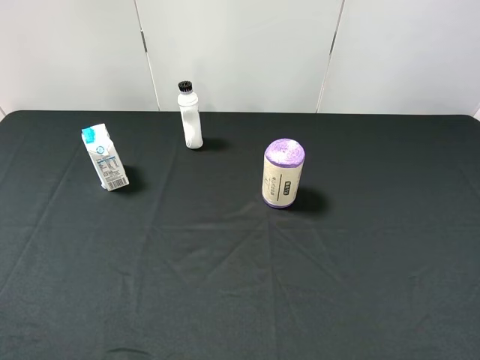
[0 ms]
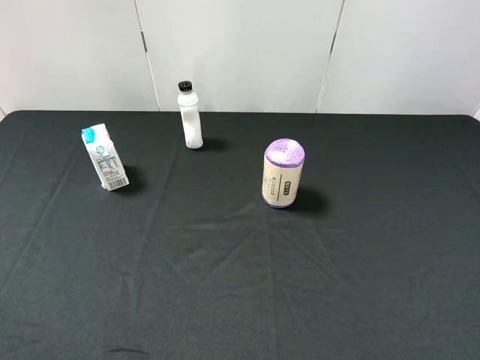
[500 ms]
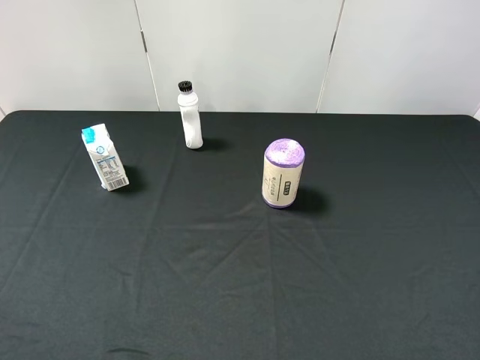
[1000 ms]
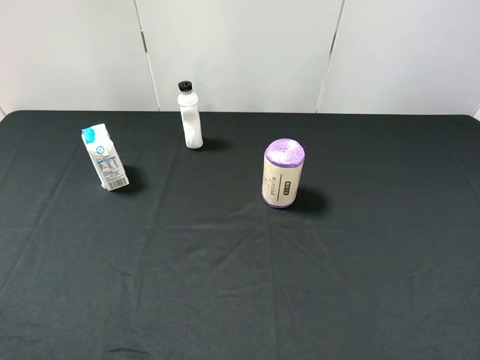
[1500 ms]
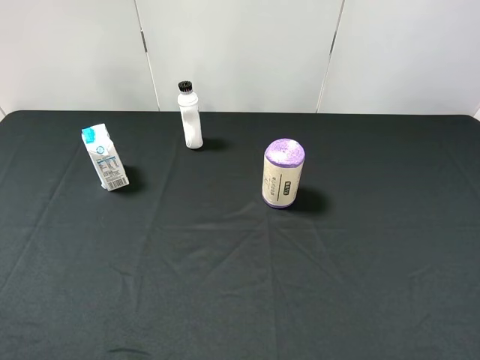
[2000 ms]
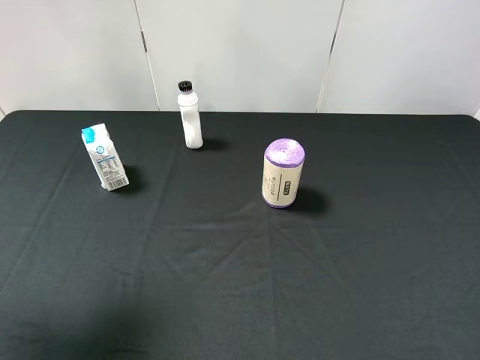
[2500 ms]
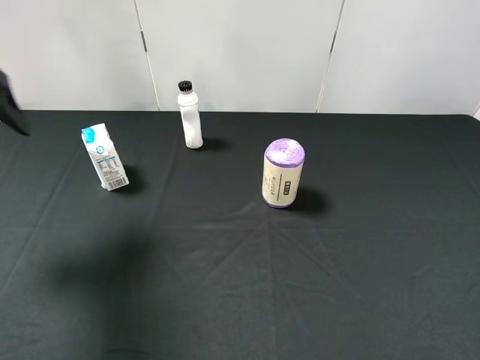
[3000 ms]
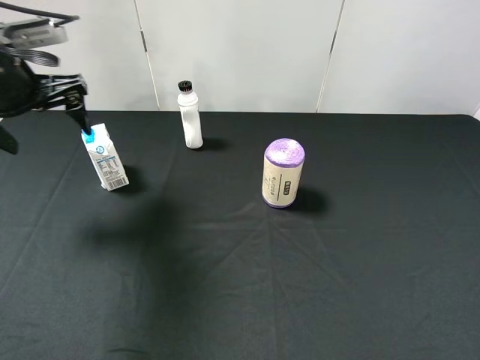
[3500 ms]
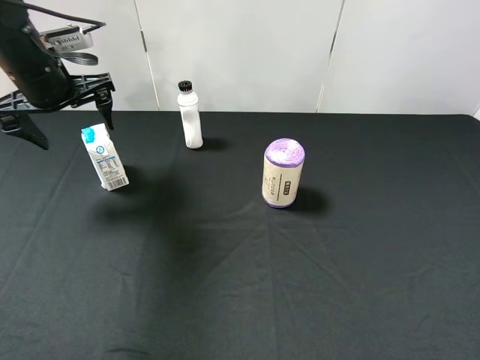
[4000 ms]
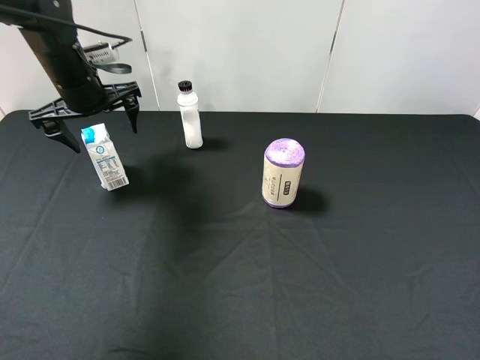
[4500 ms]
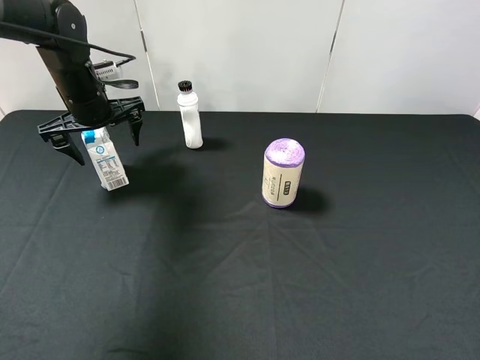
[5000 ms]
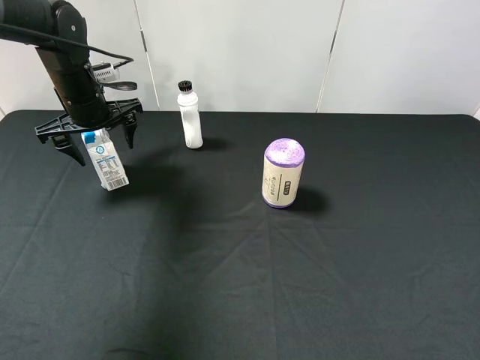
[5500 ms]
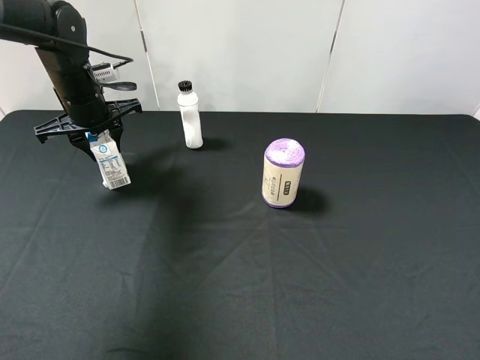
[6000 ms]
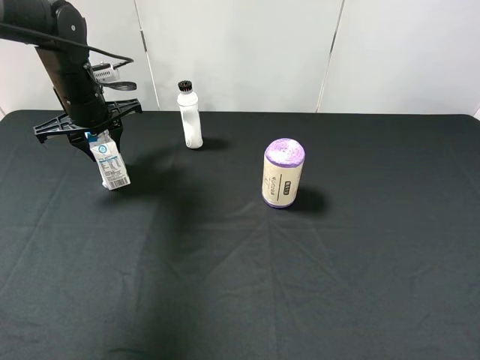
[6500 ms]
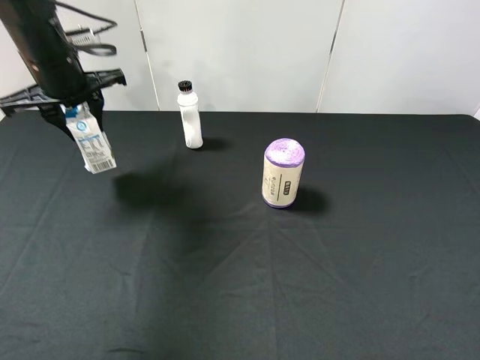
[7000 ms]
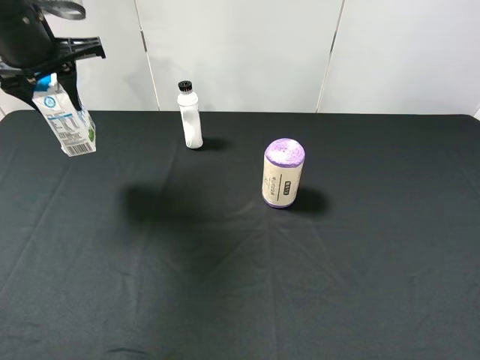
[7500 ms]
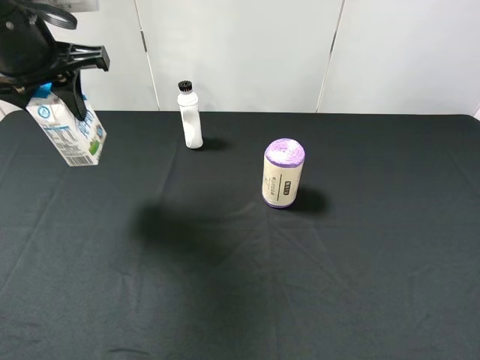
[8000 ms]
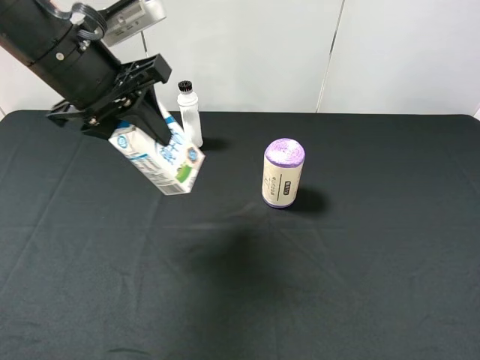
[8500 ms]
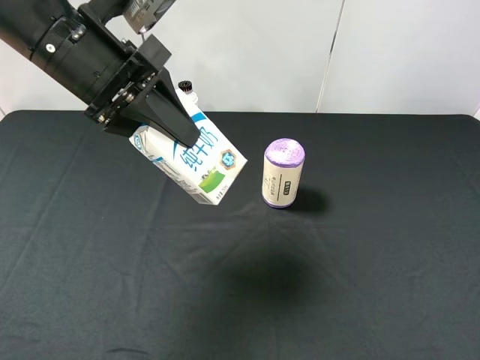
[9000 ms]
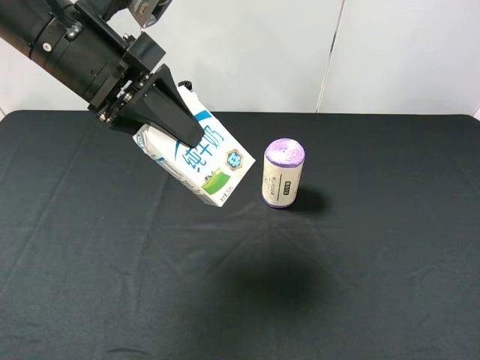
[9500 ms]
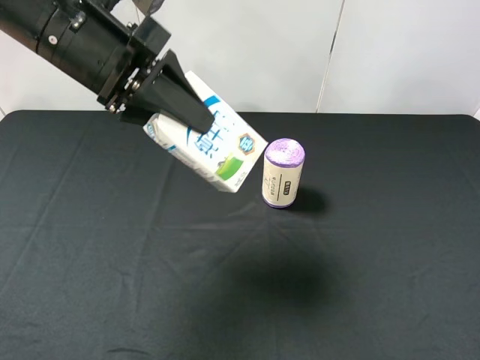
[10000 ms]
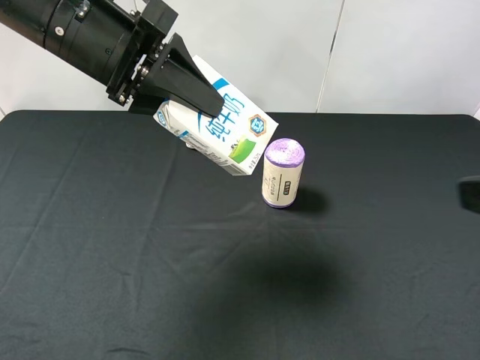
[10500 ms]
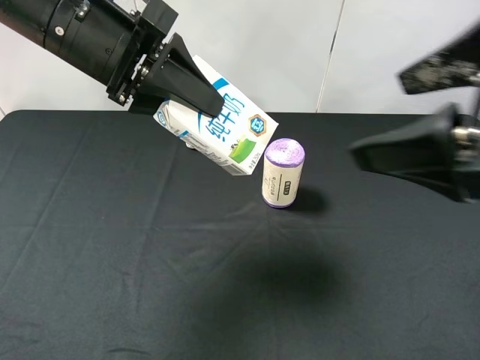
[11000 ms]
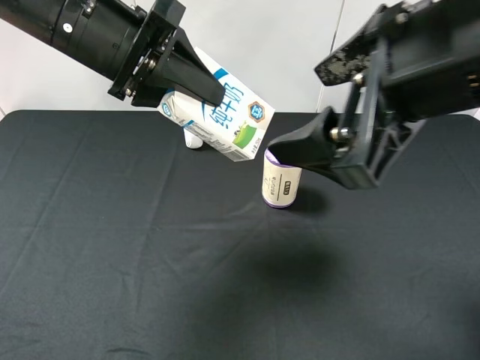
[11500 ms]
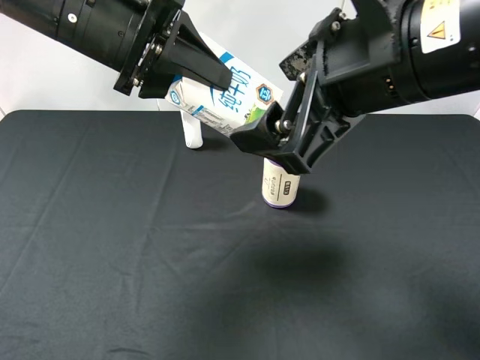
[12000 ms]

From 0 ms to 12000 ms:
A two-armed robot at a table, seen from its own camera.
Task of the whole recording: use the left gripper to pick up the item and transfer it from the left gripper to the right gripper.
From 2000 ms to 4000 ms: The left gripper heads forward, covering approximately 35 cm.
From 4000 ms to 6000 ms: The left gripper shifts about 5 cm downward, and closes its fingers.
From 6000 ms to 8000 ms: The left gripper is displaced upward and backward by roughly 15 cm.
From 8000 ms to 10000 ms: The left gripper shifts roughly 10 cm to the right.
From 10000 ms to 12000 ms: The right gripper travels to the left and forward by roughly 20 cm.

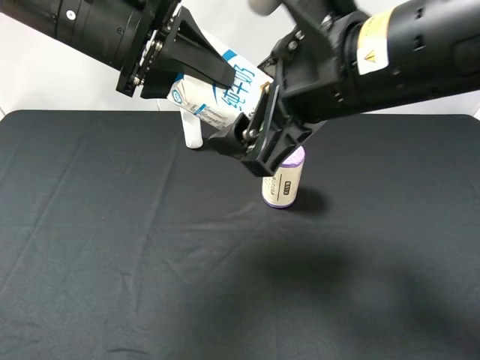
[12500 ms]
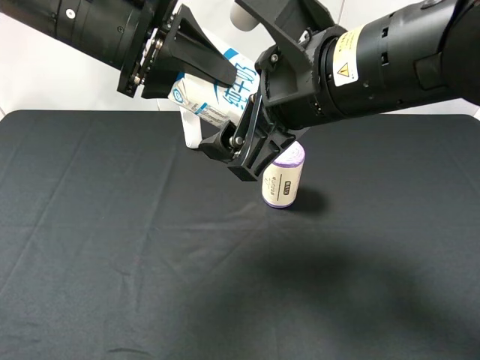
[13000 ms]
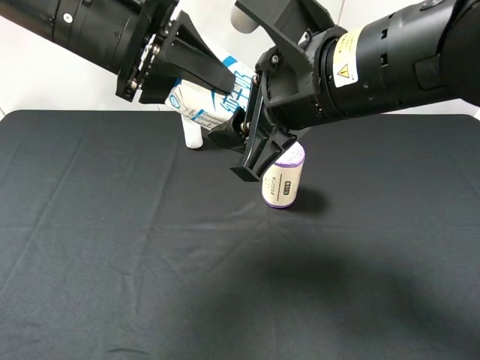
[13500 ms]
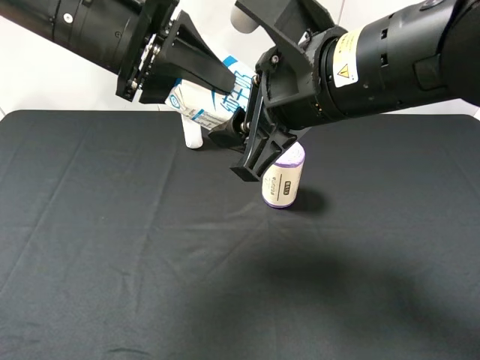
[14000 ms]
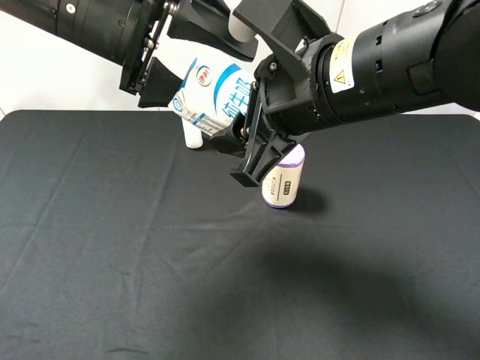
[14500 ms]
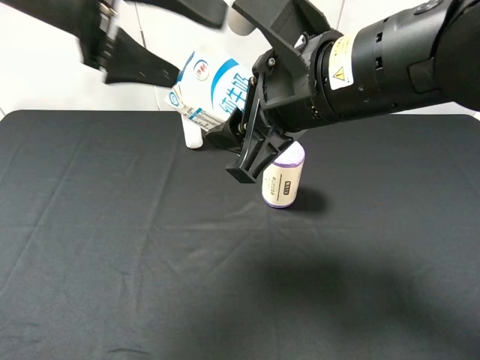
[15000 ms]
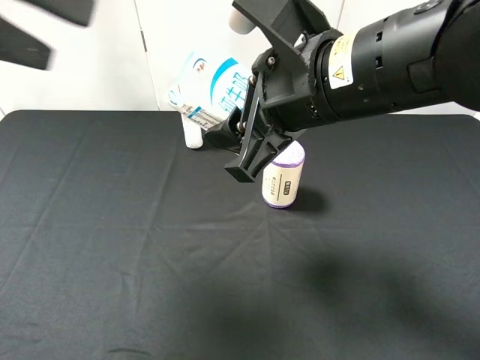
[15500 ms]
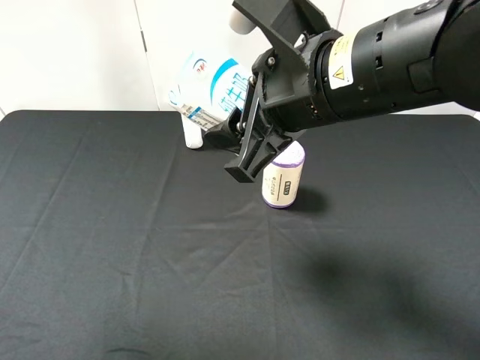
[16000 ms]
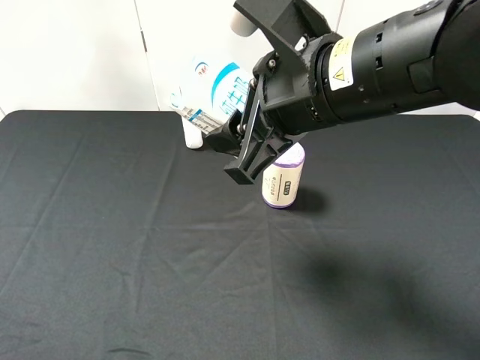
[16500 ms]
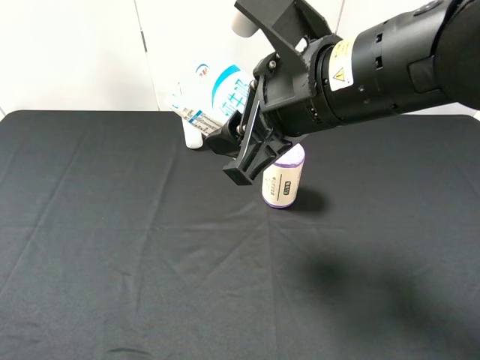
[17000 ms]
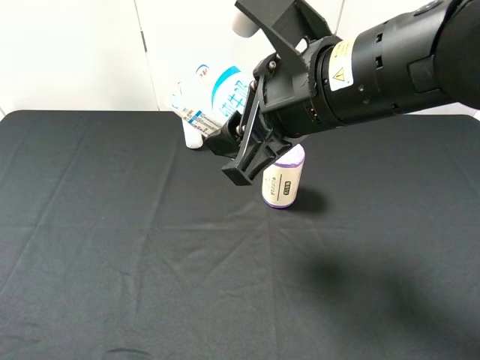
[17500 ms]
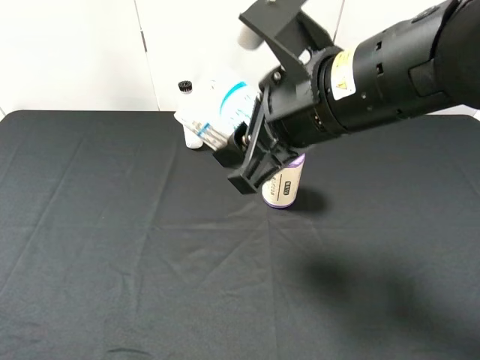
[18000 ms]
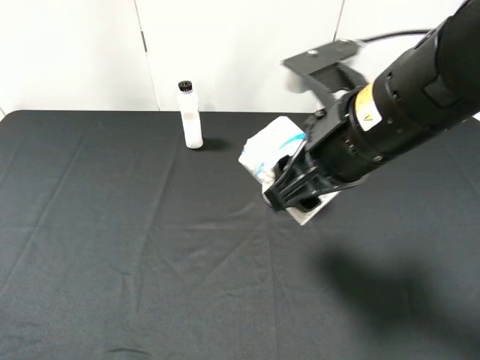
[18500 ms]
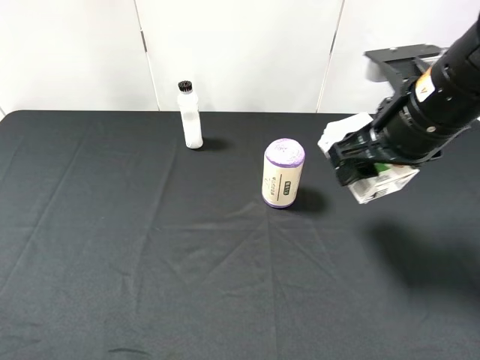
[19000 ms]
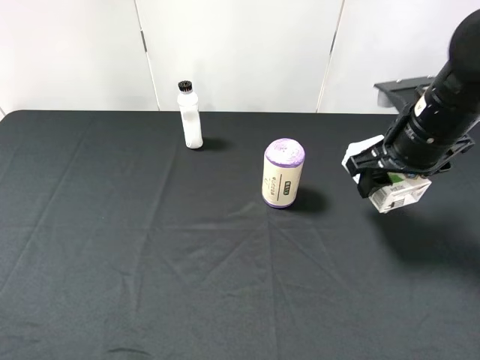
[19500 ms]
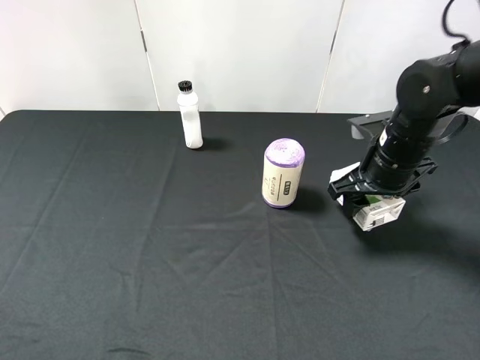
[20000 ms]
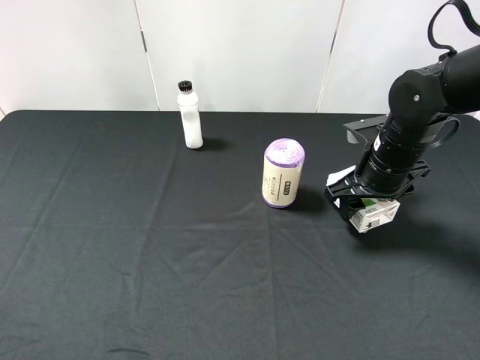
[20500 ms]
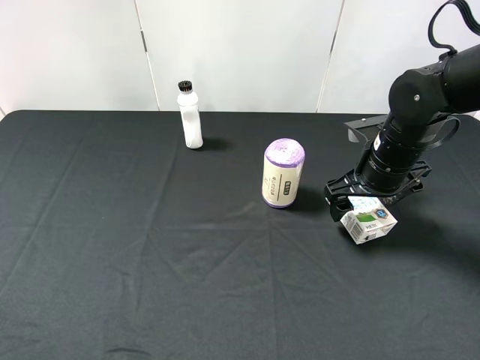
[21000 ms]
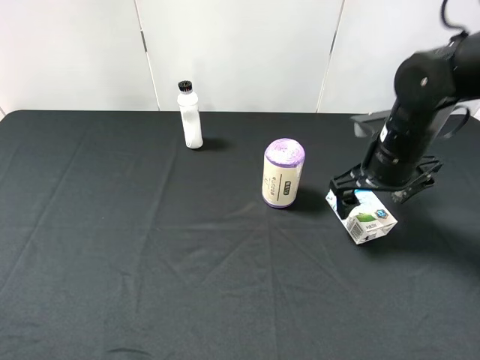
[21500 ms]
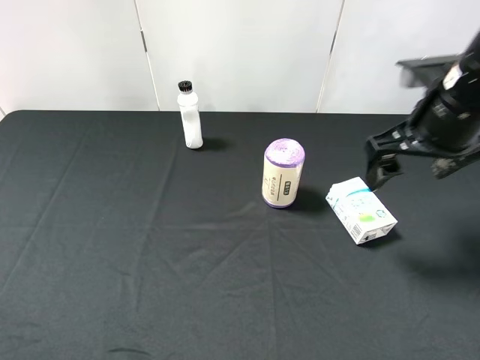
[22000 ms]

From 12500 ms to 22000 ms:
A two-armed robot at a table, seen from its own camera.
Task of the whole recording: use the left gripper to pick up the item and transfer it from the left gripper to the right gripper.
From 12500 ms to 14500 ms: The left gripper opens. The right gripper closes its fingers.
From 14500 ms to 16500 ms: The left gripper is displaced backward and to the left by some 30 cm.
From 16500 ms to 18000 ms: The left gripper travels downward by about 10 cm.
From 18000 ms to 20000 ms: The right gripper shifts some 20 cm downward, to the right and forward.
From 20000 ms to 22000 ms: The right gripper travels upward by about 10 cm, and opens up.

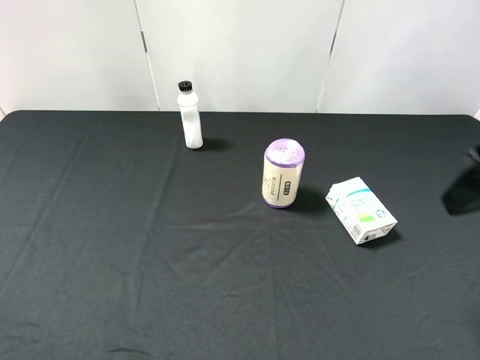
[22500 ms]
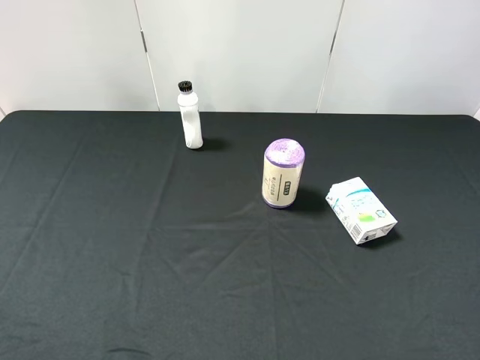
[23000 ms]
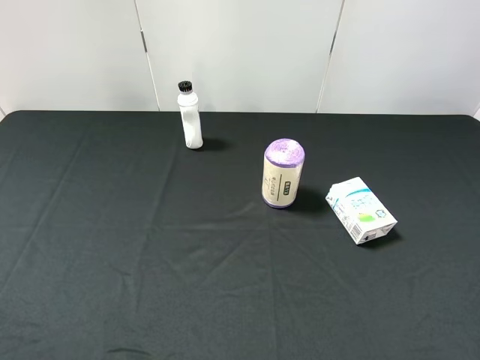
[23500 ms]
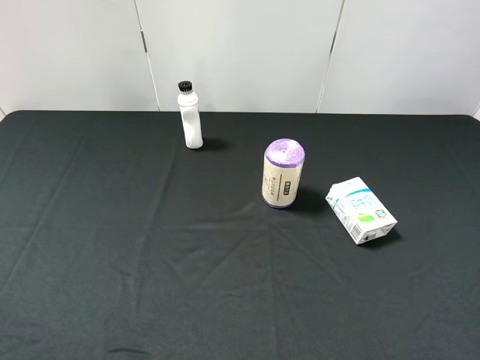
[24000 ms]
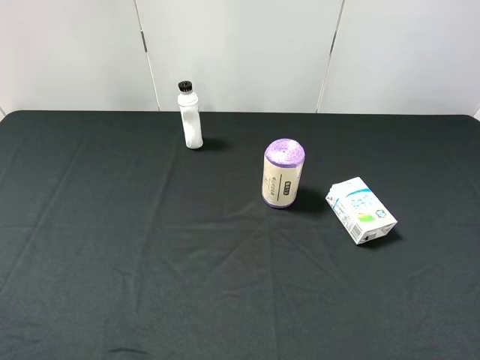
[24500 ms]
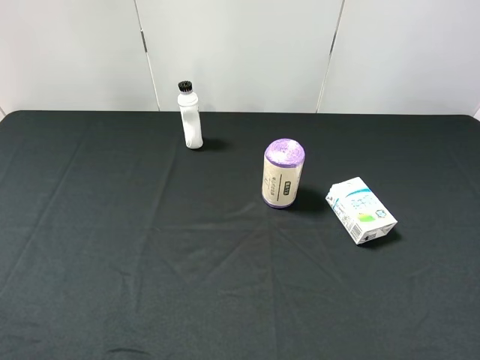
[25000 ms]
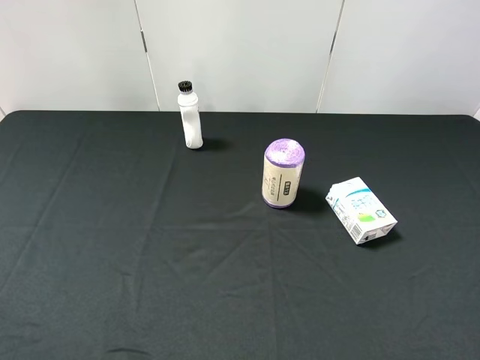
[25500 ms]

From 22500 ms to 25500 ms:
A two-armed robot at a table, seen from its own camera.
Task of the whole recording: use the left gripper to pick up the item and transfer it from the left gripper to the right gripper.
From 22500 ms to 24000 ms: The right gripper travels backward by some 15 cm.
